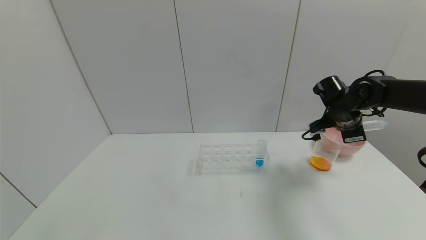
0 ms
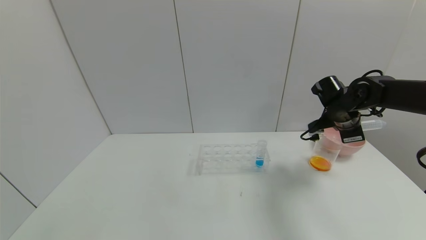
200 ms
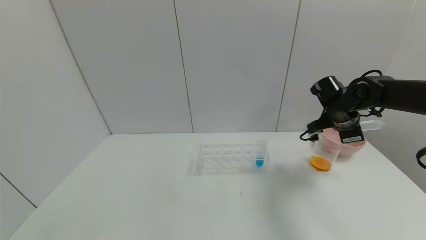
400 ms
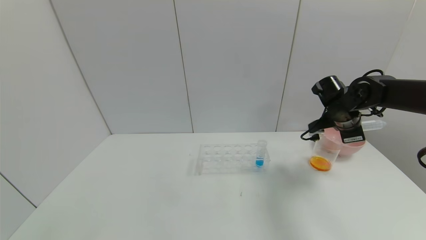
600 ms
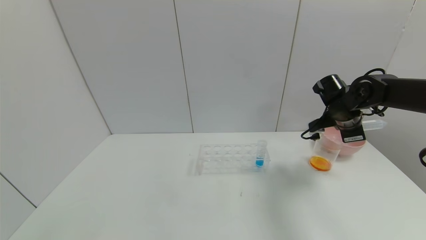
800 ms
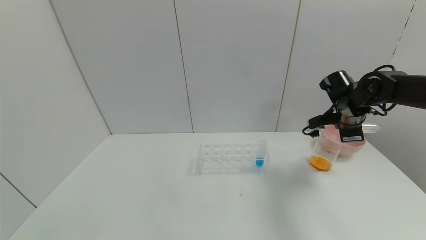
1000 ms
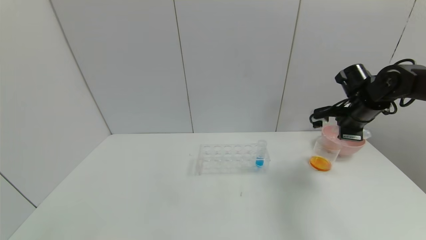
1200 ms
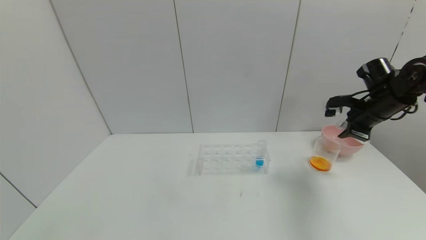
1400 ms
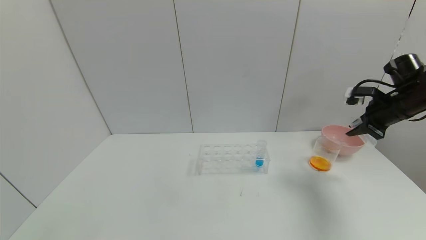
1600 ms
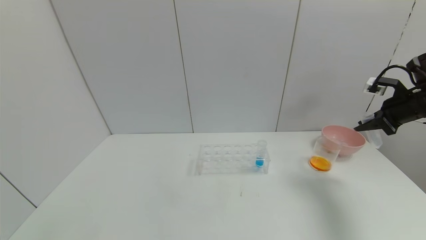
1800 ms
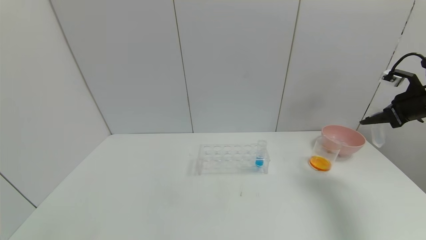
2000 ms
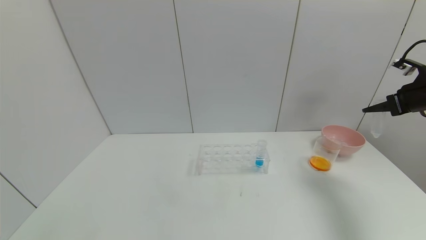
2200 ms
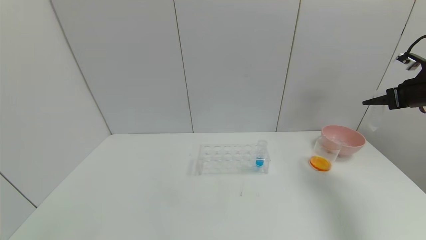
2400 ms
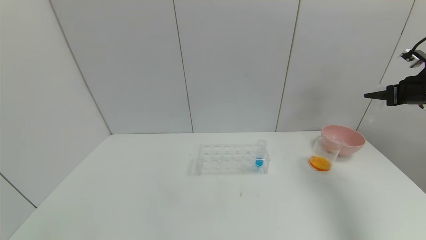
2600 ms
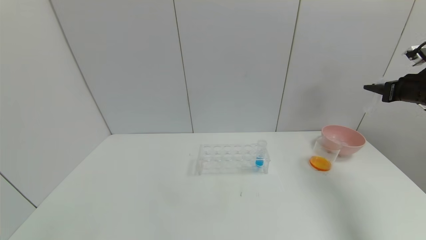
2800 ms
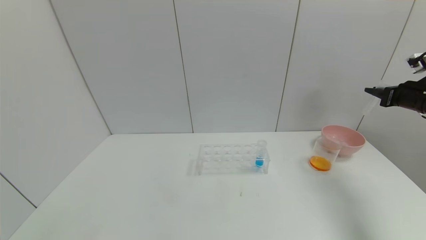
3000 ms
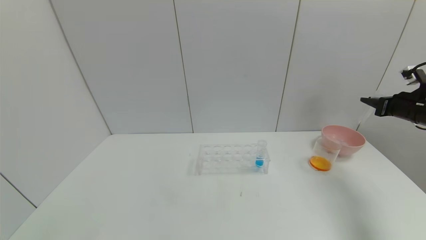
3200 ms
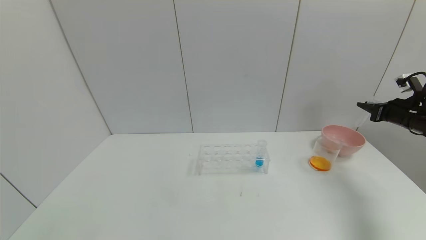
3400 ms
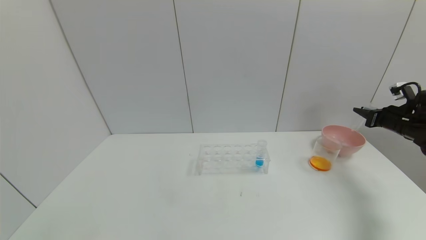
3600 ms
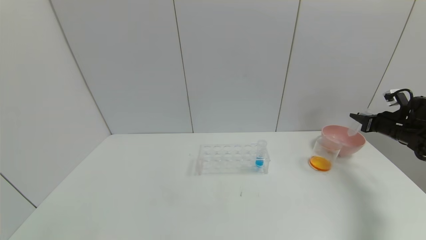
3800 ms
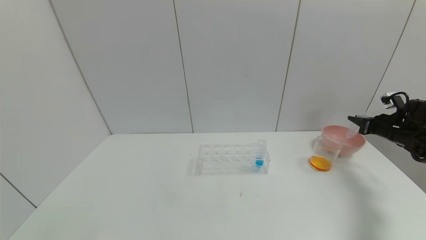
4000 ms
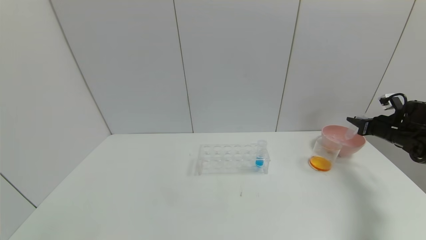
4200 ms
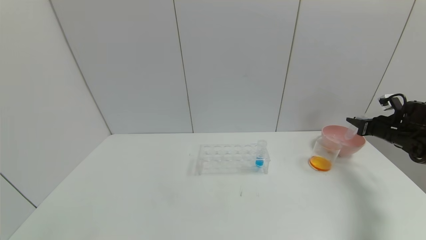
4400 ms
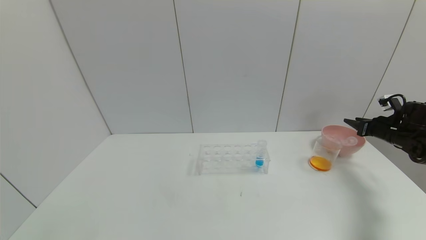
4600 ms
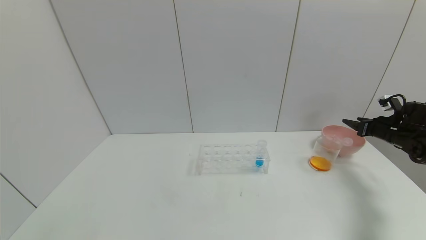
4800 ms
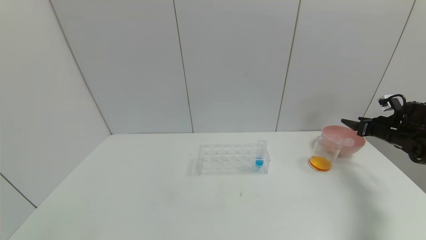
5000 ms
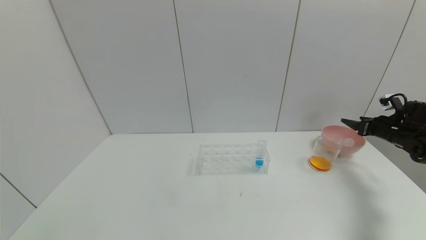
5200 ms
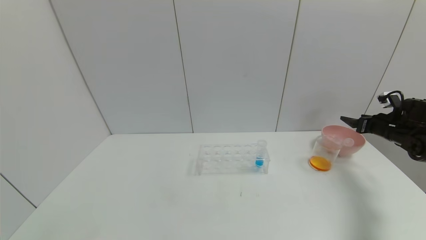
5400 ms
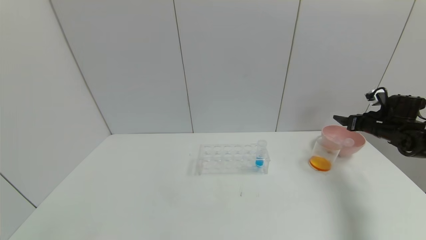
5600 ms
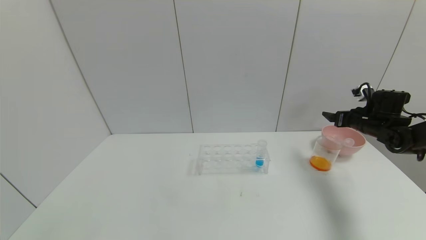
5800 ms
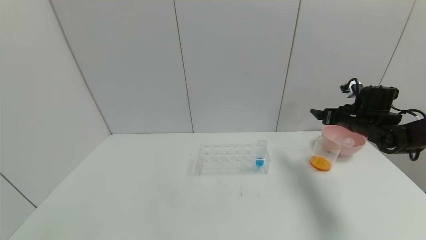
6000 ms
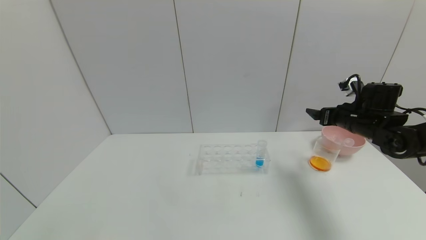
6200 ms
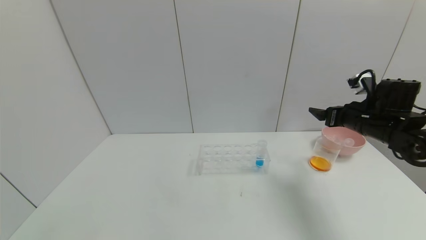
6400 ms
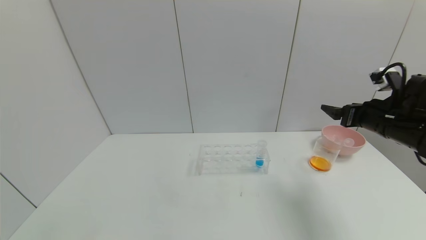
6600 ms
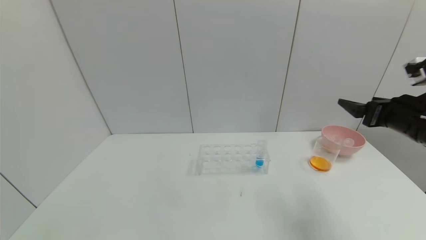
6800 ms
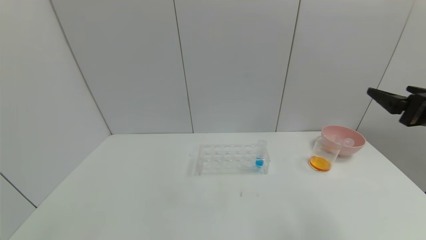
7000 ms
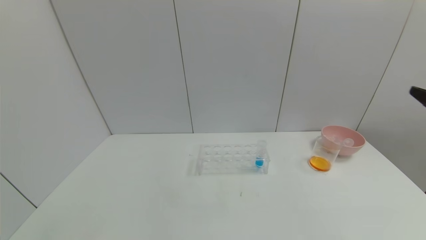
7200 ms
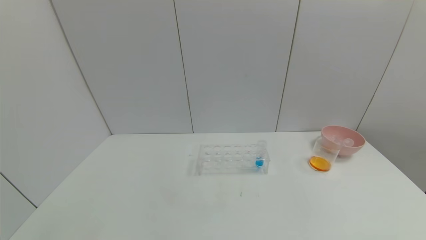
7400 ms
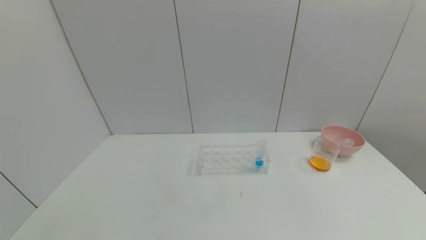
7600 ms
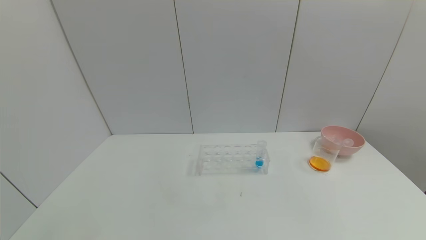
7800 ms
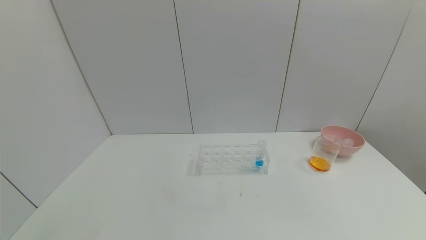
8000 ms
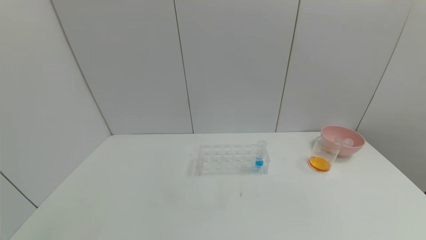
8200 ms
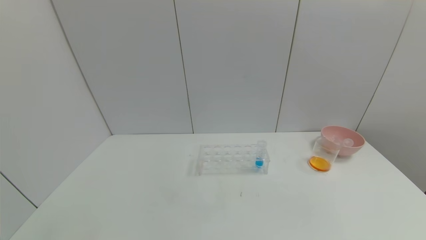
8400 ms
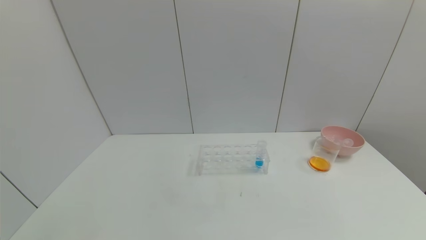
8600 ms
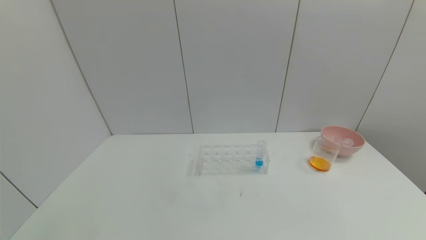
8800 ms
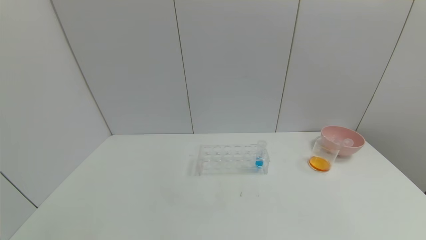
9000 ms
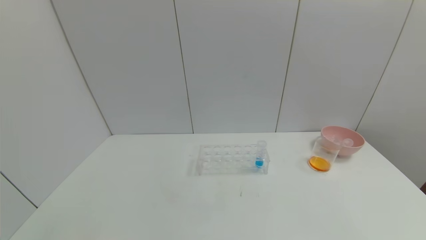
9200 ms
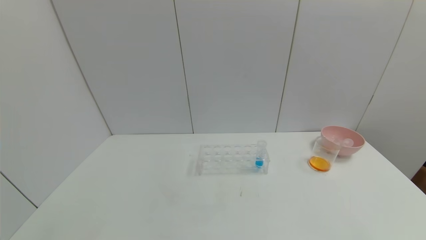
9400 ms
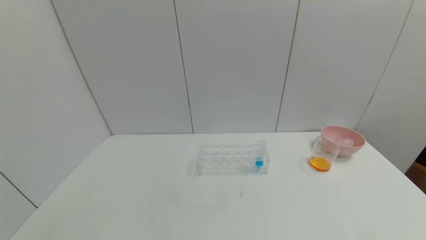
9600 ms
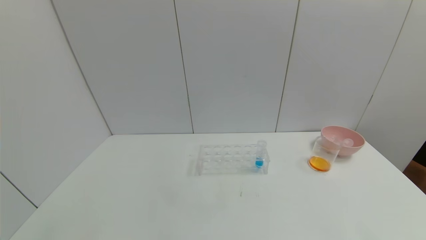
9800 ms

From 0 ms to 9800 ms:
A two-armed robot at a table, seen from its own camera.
Task of the whole recording: pick up the test tube with yellow pigment and the test tube with red pigment by grippers and pour them into the beaker.
Step, from 400 ms to 4800 ms: Place the test tube into the bowl with the right gripper.
From 0 ms to 1400 ms: The right gripper moves to the right, roughly 5 cm.
From 1400 ms to 2800 ms: The right gripper moves to the right, some 10 cm.
From 2800 ms to 4200 ms: The right gripper shifts about 15 cm downward.
From 4200 ms to 5600 ms: The right gripper opens.
From 5600 ms to 7000 ms: The right gripper goes approximately 30 cm backward, upward and to the left.
From 7000 ms to 8400 ms: The right gripper shifts about 30 cm backward.
